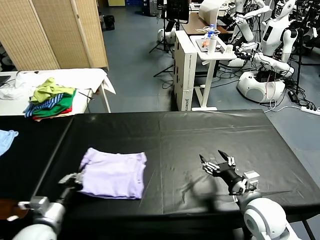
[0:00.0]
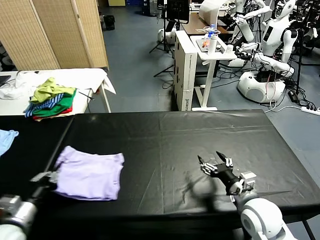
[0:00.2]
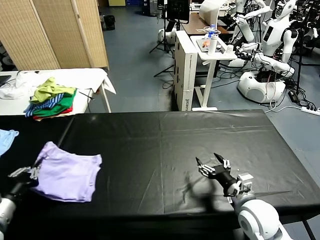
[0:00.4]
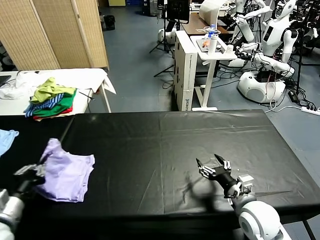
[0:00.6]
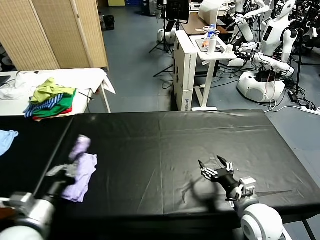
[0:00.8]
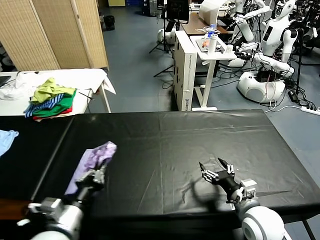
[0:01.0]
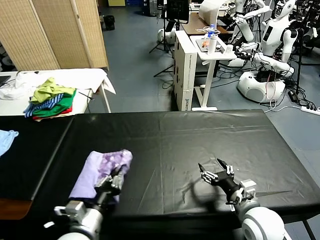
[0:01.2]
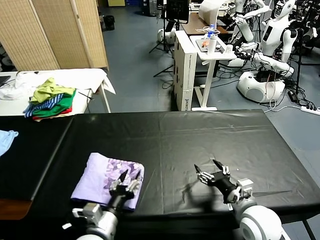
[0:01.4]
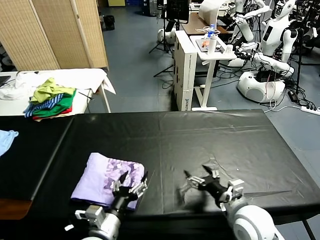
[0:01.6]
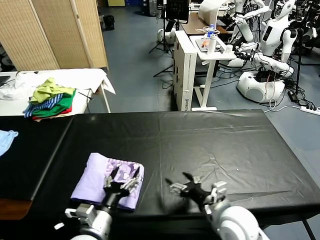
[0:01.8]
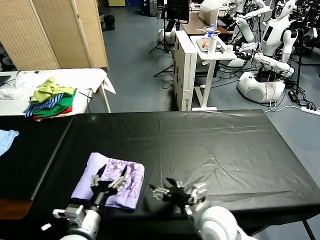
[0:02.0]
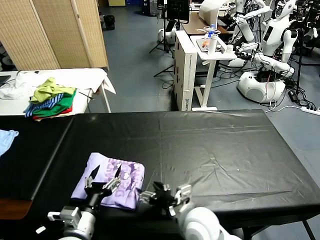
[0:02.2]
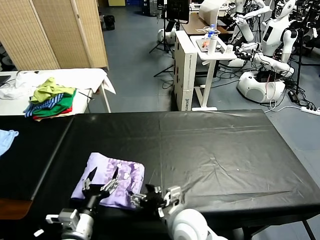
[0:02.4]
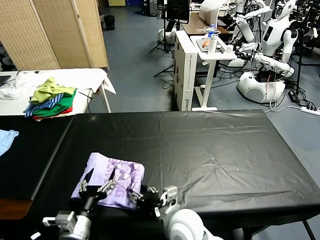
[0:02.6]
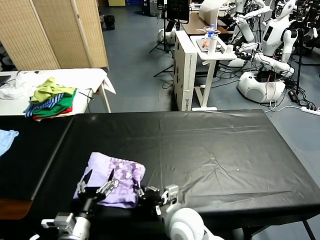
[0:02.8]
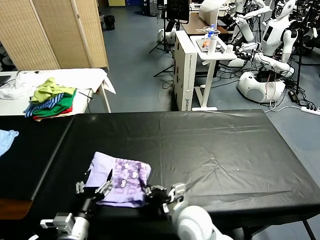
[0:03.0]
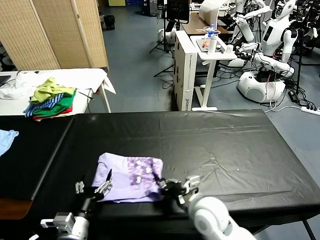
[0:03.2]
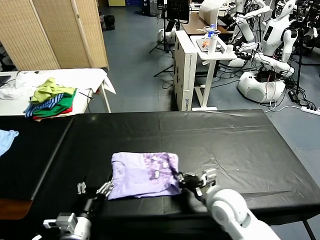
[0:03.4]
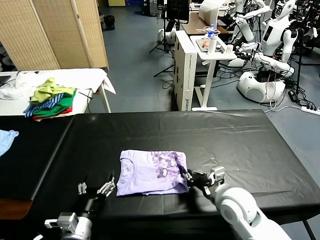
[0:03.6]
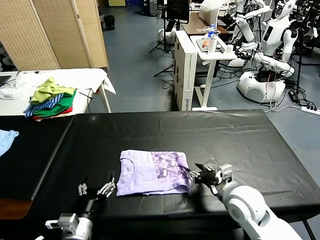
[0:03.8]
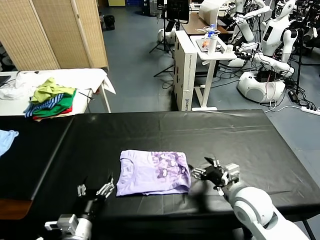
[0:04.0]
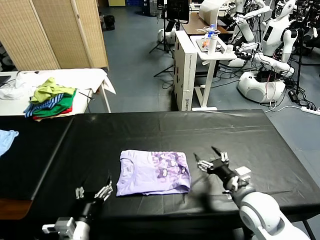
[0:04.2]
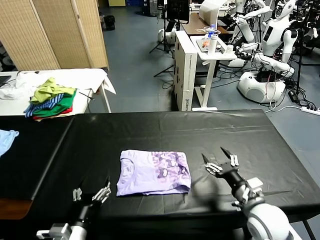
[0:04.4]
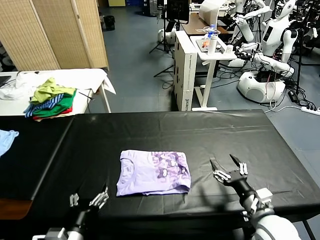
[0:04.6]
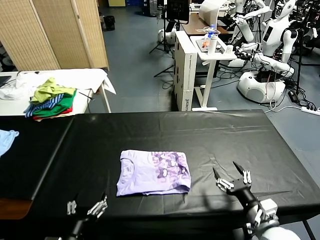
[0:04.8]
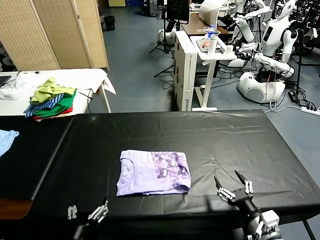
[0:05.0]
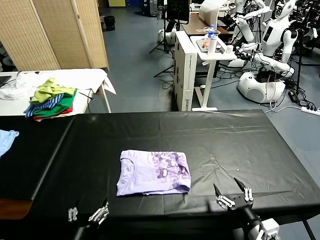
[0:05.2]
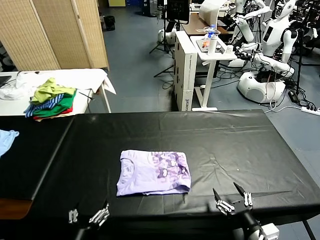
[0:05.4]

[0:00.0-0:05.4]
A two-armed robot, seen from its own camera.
Task of the whole recording: fold and organize the clothes.
Step, 1.8 to 3.8 s: Drag the clothes to the center of the table.
0.0 to 1.4 s: The left gripper heads to the right, covering approximately 25 cm, and opens its fingers.
1.4 to 2.8 s: The right gripper shifts some 15 cm to the left, and closes up. Meanwhile the left gripper goes some 5 cm to the left.
2.8 to 4.0 s: The right gripper heads to the right, covering some 15 cm, and opens.
4.0 to 5.4 s: The right gripper travels backward by approximately 15 cm; the left gripper heads backward, covering approximately 5 cm.

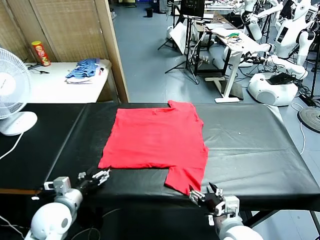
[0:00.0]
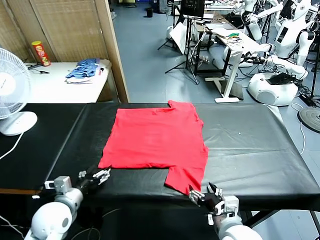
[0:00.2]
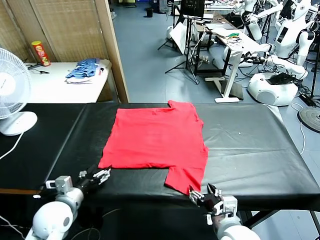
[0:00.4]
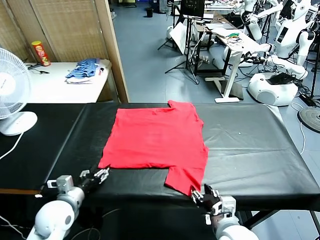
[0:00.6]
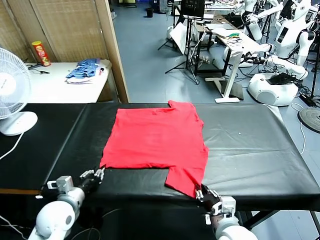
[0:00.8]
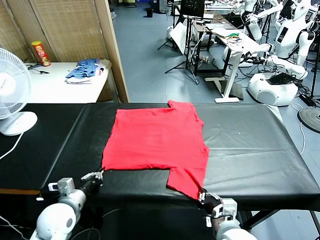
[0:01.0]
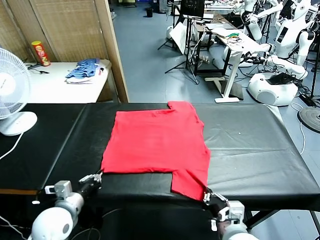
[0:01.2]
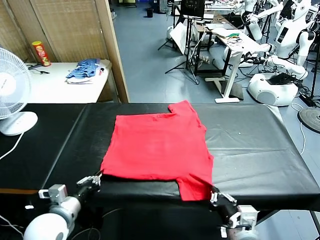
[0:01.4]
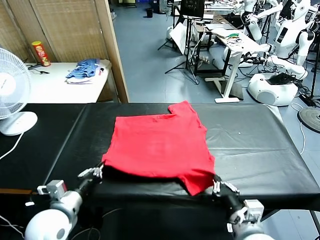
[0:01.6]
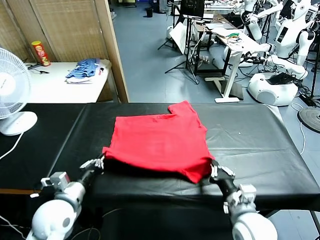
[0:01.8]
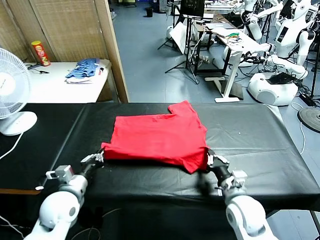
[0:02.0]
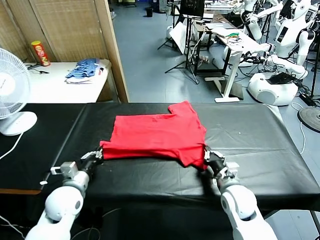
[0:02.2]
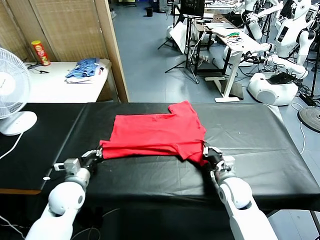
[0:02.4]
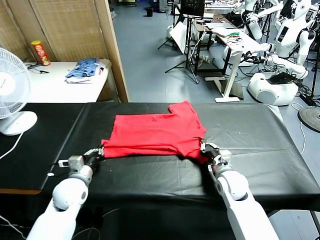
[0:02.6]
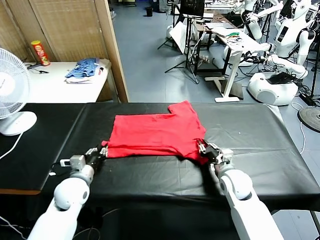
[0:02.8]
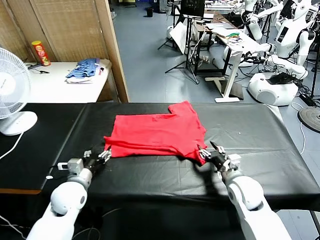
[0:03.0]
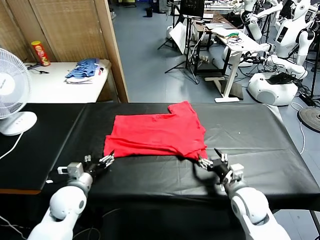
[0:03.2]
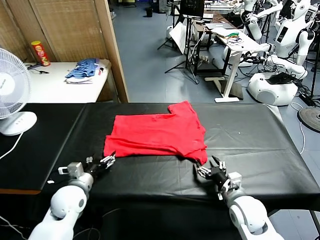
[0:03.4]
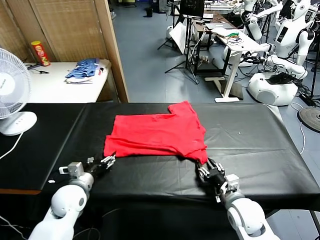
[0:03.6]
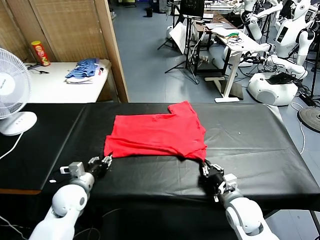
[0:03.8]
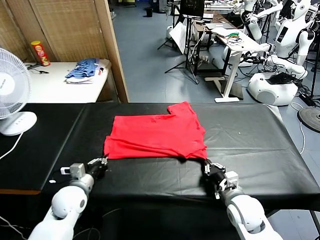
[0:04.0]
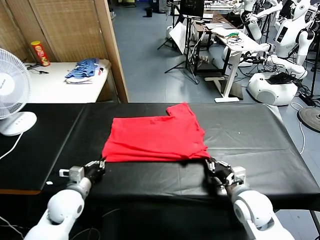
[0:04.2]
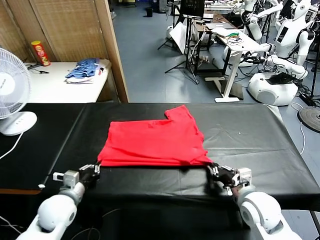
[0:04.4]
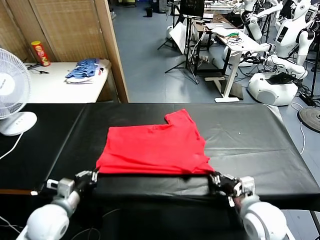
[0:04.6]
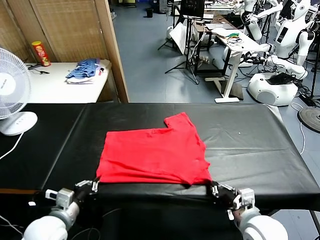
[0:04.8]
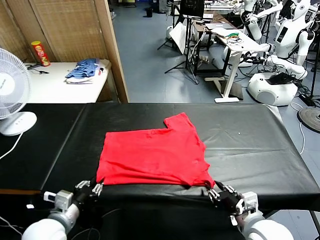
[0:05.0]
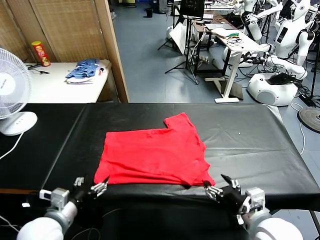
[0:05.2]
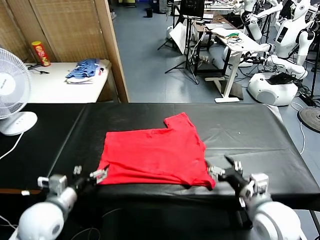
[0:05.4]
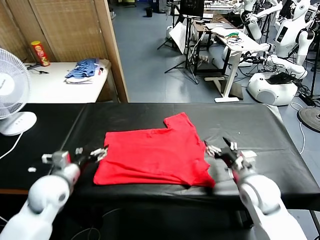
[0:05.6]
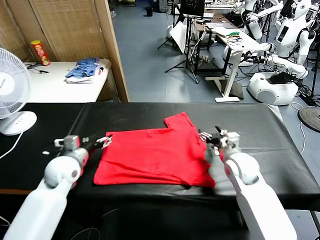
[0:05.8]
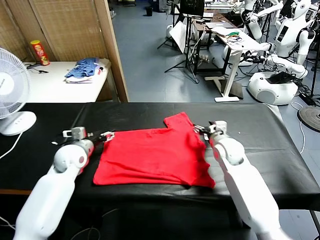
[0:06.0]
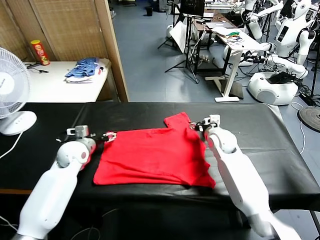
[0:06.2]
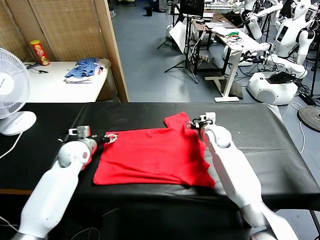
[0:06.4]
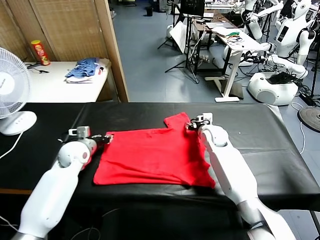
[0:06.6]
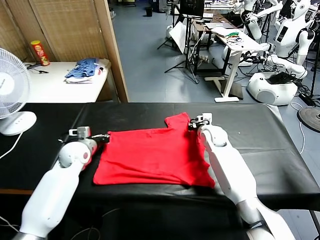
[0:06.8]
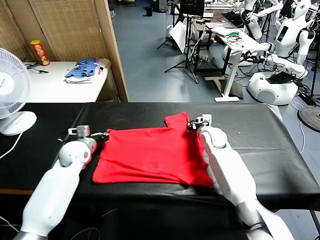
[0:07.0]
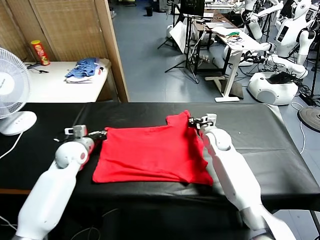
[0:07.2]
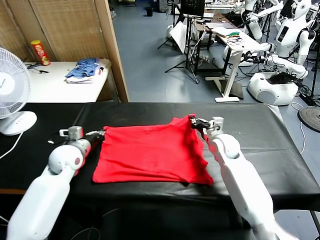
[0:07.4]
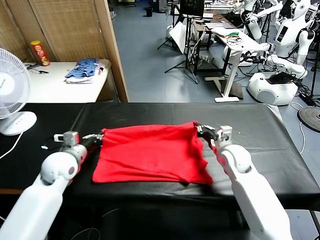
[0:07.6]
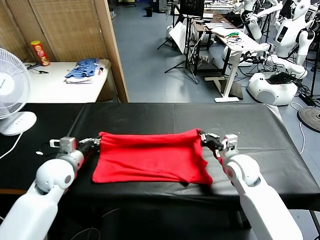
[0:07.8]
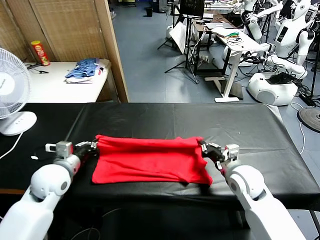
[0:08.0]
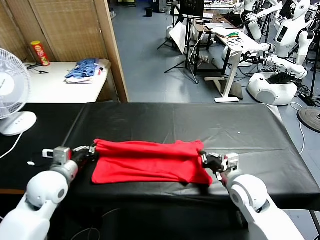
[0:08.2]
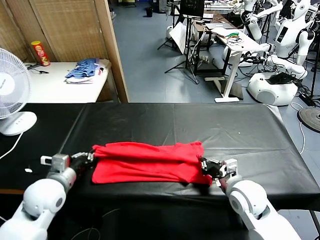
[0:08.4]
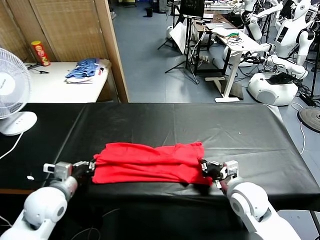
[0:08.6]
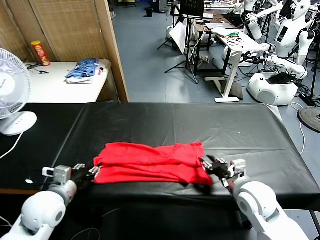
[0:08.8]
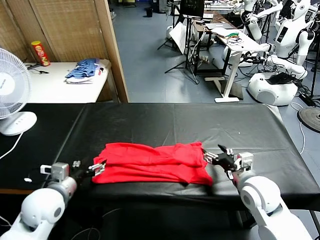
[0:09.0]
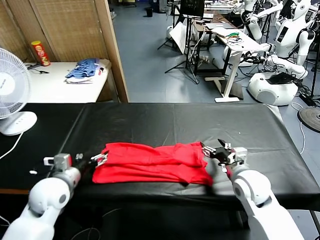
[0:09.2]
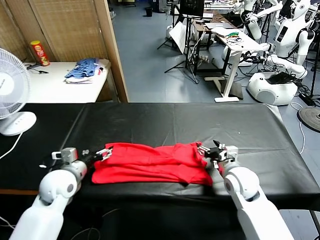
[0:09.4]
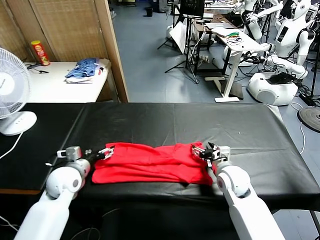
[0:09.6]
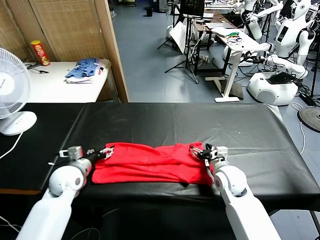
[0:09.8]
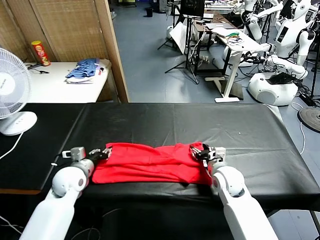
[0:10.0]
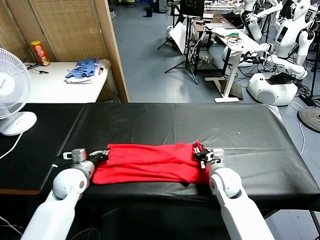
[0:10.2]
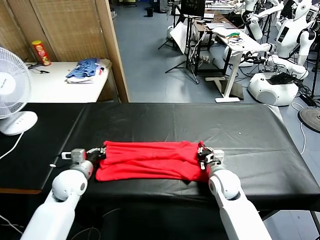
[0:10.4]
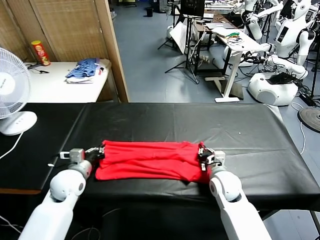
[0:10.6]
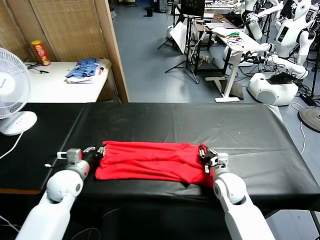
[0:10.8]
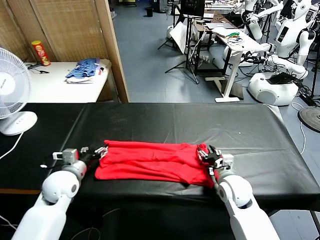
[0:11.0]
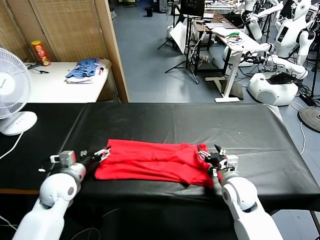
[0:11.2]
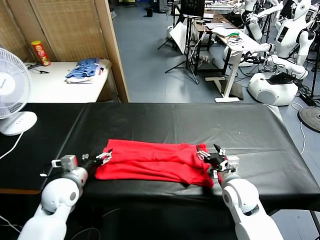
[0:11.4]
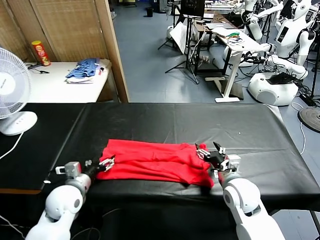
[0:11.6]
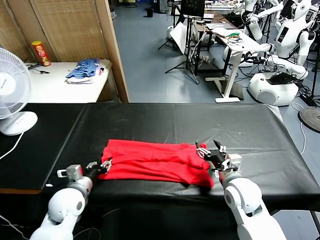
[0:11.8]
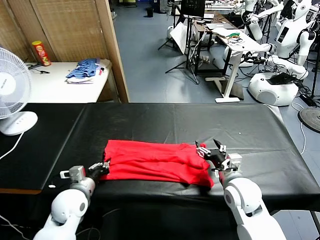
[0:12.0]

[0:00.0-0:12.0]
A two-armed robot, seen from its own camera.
Task of the whole recording: fold and organize the clothes.
Step, 0.0 to 1.0 s: use both grippers simultaneously to clamp the lower edge of the clothing fabric.
Step, 1.2 to 3.0 s: use both grippers to drag the lower edge of the fabric forward and fold it over the upper edge.
Step, 3.2 to 4.8 s: Drag the clothes downward with both gripper.
Step, 5.0 to 6.8 s: use both grippers simultaneously to clamp the upper edge of the clothing fabric.
Step, 7.2 to 8.6 s: use both grippers to drag the upper edge of the fabric backward and fold it over the lower edge.
Step, 8.8 to 12.0 s: use the left gripper to clamp the left edge of the fabric.
1.6 to 3.0 s: The right gripper goes forward and returns, about 10 cm each way, and opens up; the left gripper goes some 10 cm forward and downward, and opens its fingers.
3.0 to 4.4 s: The left gripper shifts approximately 5 cm backward, and closes, while the right gripper goes about 10 cm backward and upward, and closes up.
4.4 to 6.0 s: The left gripper travels forward by approximately 20 cm, and opens, while the right gripper travels forward by some 30 cm, and opens.
6.0 to 7.6 s: The right gripper shifts approximately 15 cm backward, and closes. The left gripper heads backward, covering about 10 cm, and closes its fingers.
7.6 to 9.0 s: The right gripper opens its fingers. Meanwhile the left gripper shifts about 10 cm backward, and opens up.
9.0 to 10.4 s: The right gripper moves downward, some 10 cm, and closes up. Meanwhile the left gripper shifts some 10 cm forward and downward, and closes up.
10.4 to 12.0 s: The right gripper moves upward and backward, about 10 cm, and opens up, while the left gripper travels backward by some 5 cm, and opens, then closes again.

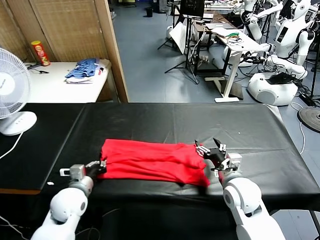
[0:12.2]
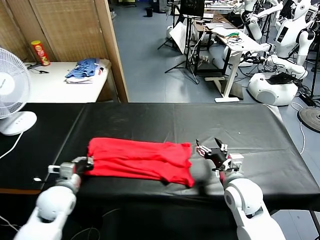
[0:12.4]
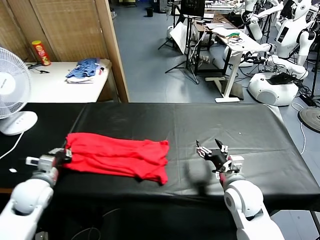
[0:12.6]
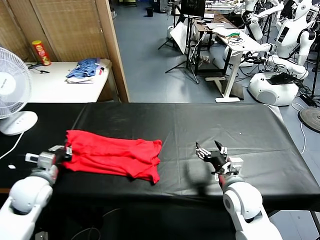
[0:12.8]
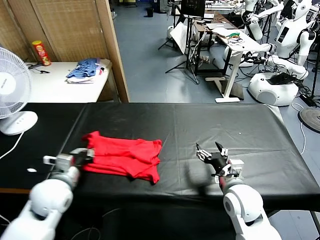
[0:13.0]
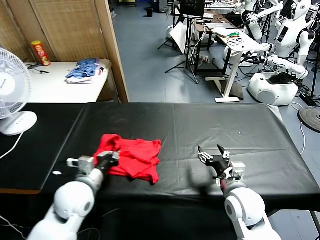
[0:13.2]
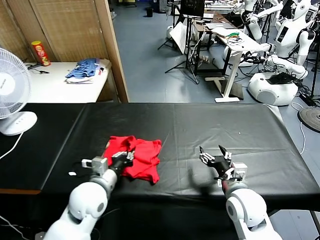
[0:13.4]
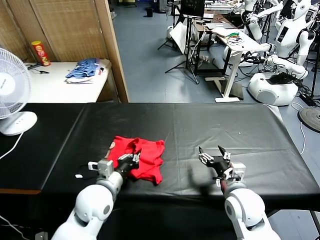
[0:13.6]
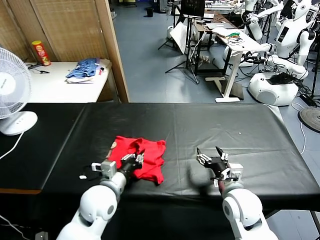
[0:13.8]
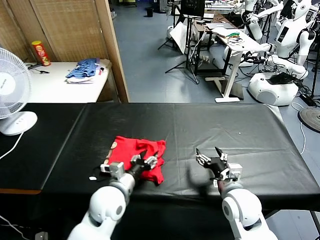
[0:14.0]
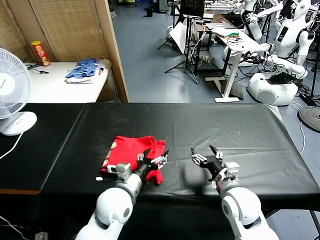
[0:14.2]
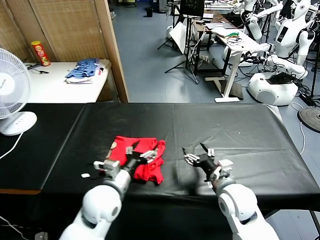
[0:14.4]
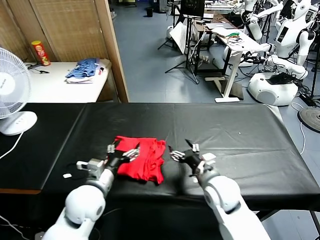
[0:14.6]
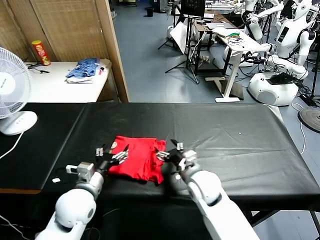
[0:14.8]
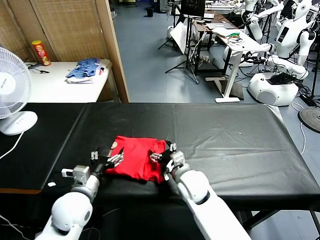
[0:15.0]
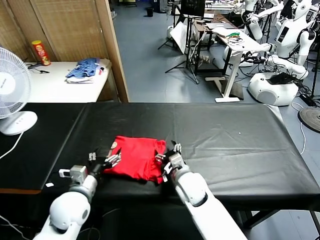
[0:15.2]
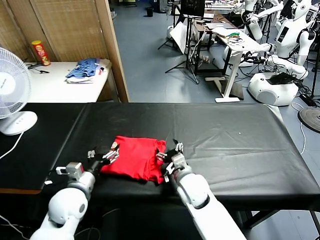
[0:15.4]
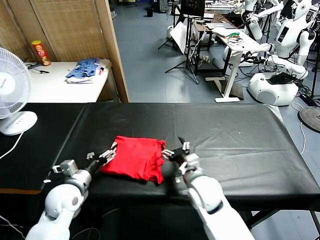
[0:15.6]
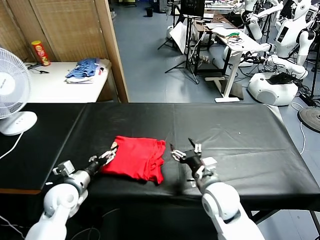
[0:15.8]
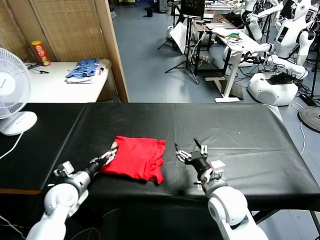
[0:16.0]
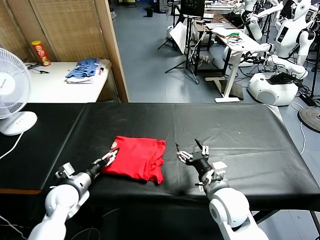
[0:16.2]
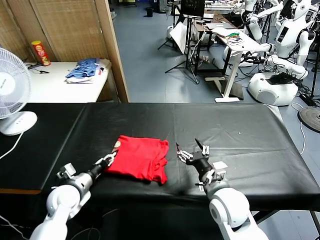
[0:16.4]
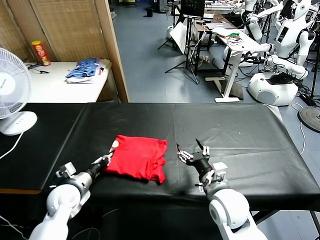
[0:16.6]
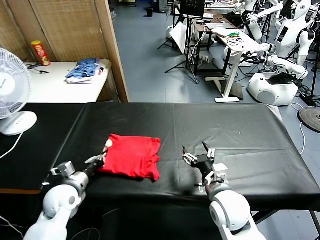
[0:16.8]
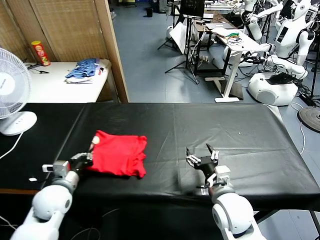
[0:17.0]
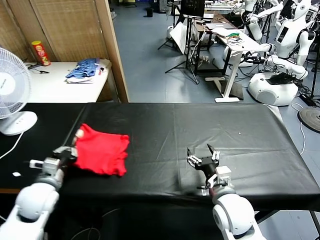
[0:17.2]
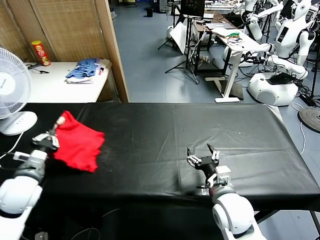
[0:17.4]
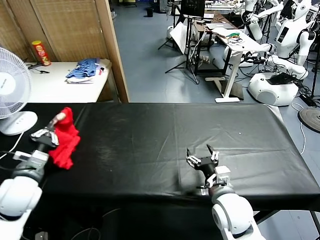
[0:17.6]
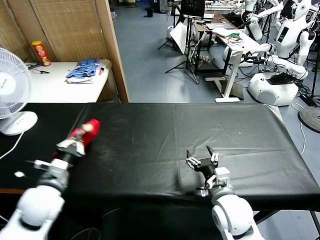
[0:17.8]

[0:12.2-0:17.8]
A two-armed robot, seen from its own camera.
Task of the whole recording: fold and organize the clothes.
Step, 12.2 to 14.2 s: use the left gripper to drag the left edge of the fabric to the left and folds it over the right edge.
12.2 to 13.6 s: The left gripper is displaced to the right by approximately 10 cm.
13.6 to 15.0 s: The left gripper shifts approximately 5 cm to the left, and opens its fingers, while the right gripper moves to the left and forward, approximately 15 cm.
15.0 to 16.4 s: The left gripper goes about 10 cm to the left and downward, and closes up. The right gripper heads to the right, backward and upward, covering some 15 cm.
16.4 to 17.8 s: The left gripper goes about 10 cm upward, and closes up.
